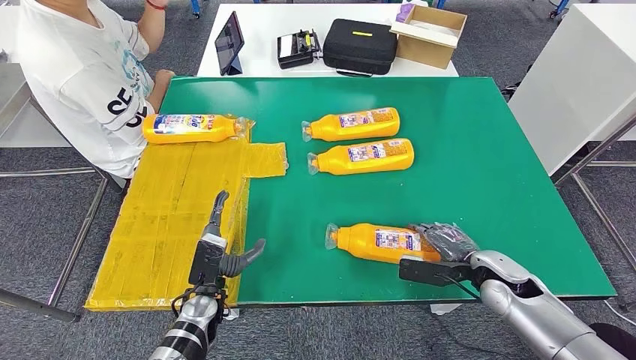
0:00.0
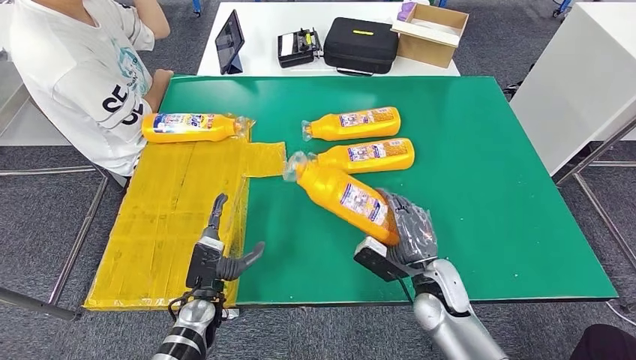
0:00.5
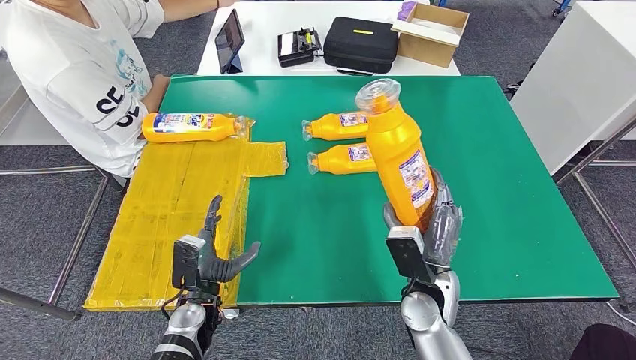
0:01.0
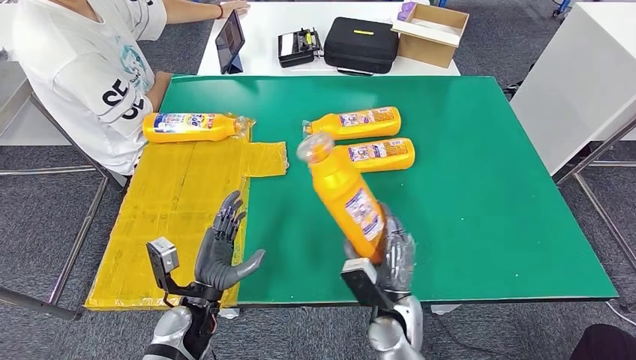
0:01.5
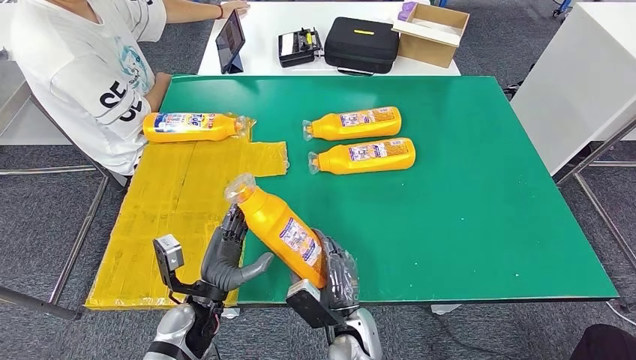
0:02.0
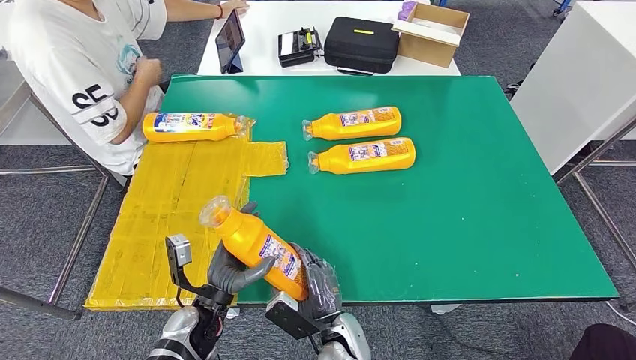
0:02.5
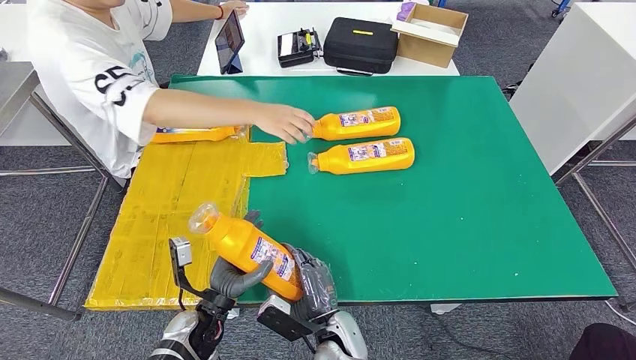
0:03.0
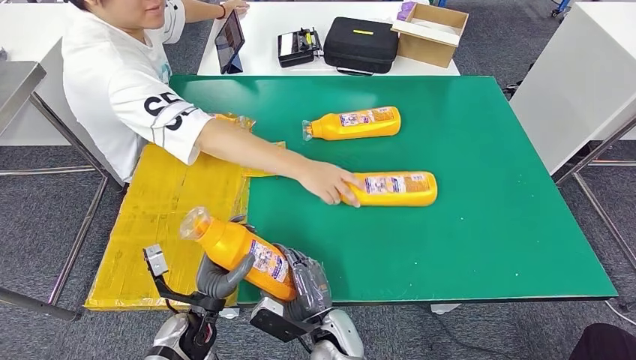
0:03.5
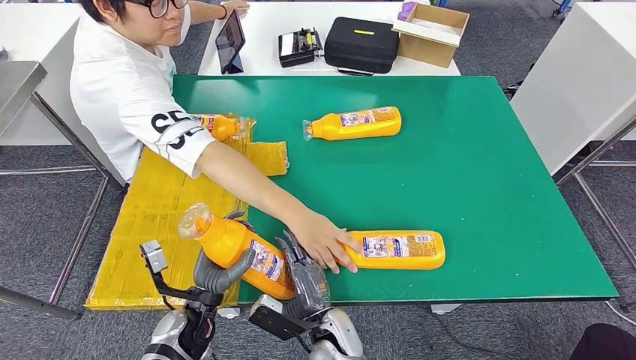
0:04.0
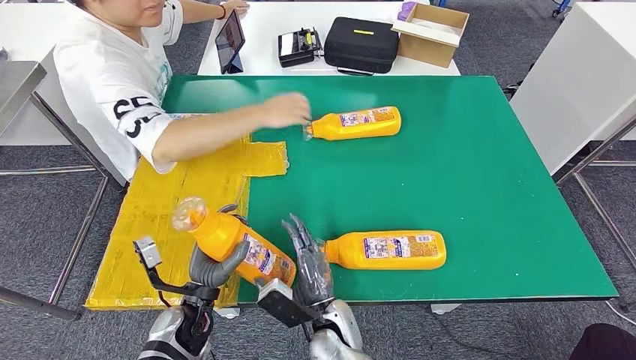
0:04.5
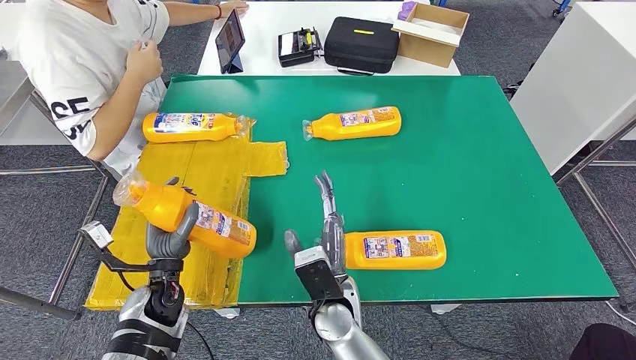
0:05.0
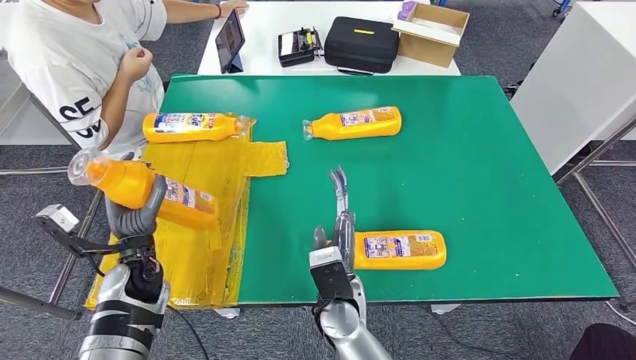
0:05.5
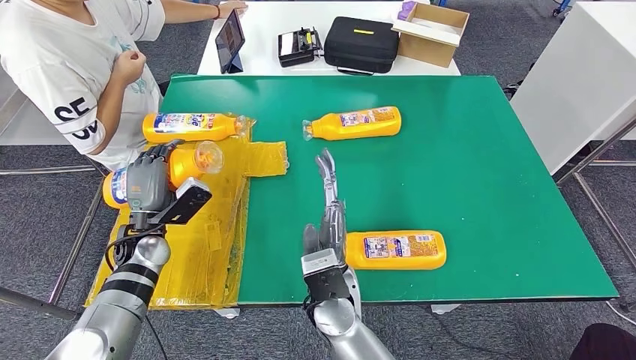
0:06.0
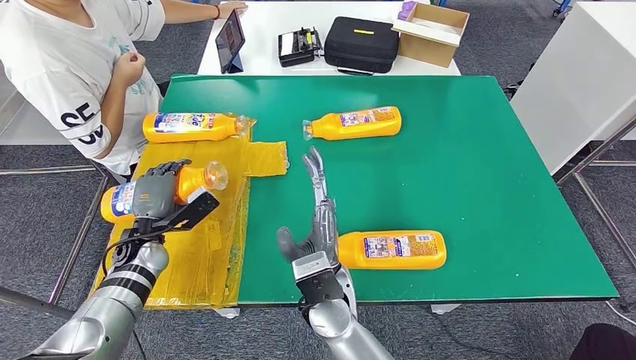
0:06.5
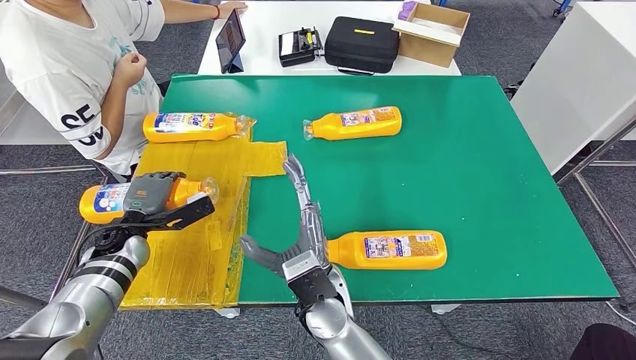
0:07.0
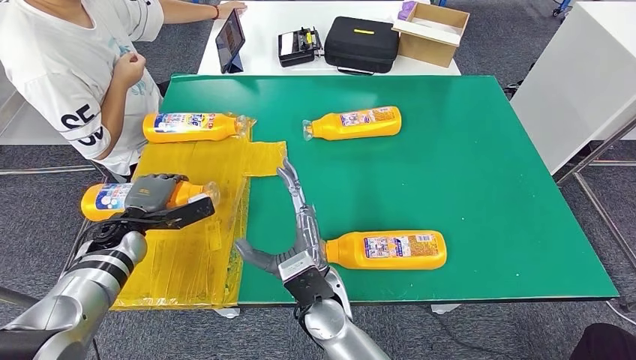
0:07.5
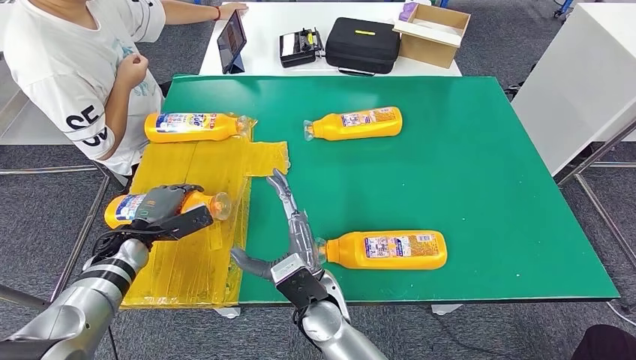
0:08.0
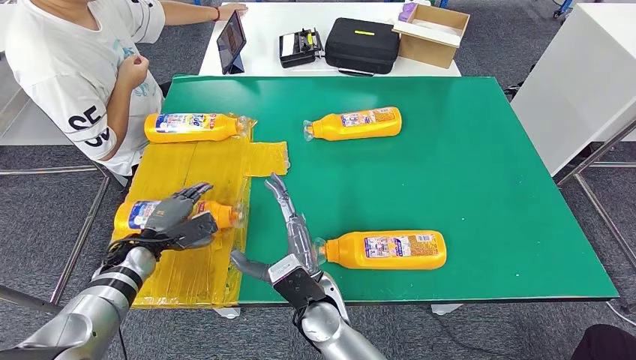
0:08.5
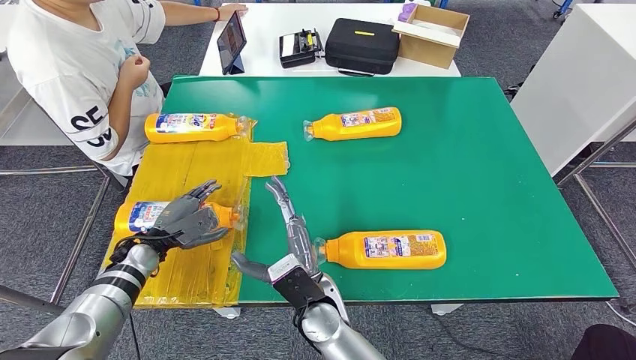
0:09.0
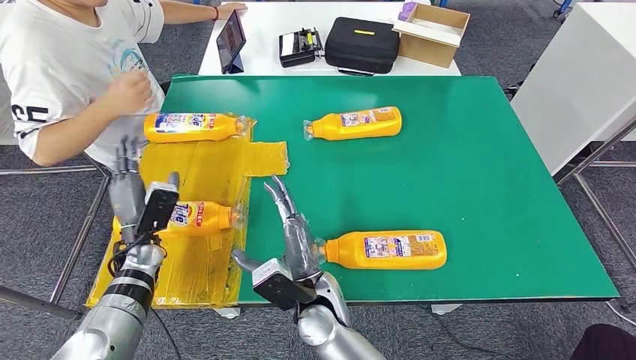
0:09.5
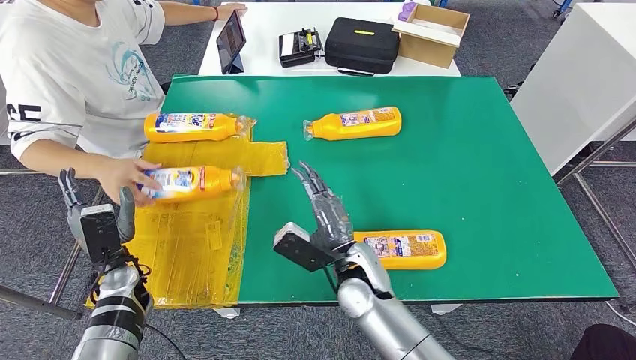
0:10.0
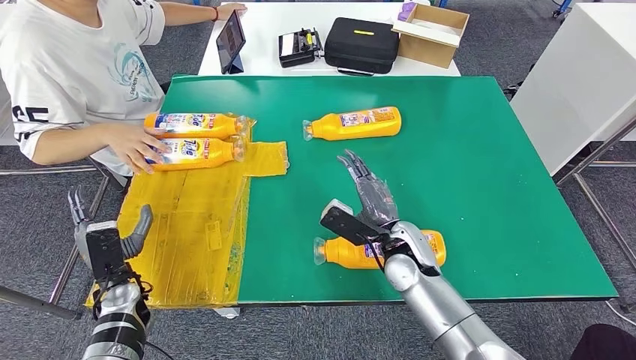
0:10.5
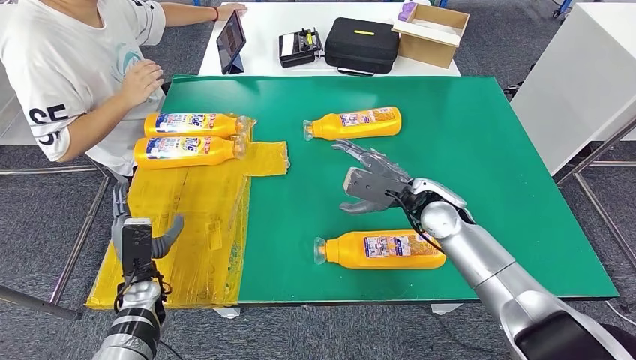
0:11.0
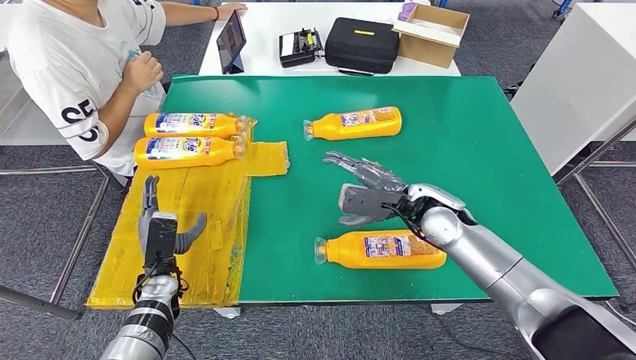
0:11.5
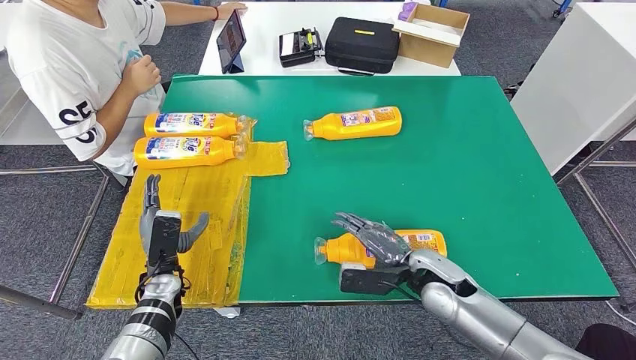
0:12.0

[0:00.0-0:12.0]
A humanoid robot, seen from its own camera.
Step, 0:00.0 to 0:03.0: Pick up the fast-moving consumer goods bottle from the table.
Step, 0:03.5 to 0:11.5: Flip the fast-moving consumer goods bottle to the front side.
0:06.0 to 0:08.0: The left hand goes some 5 cm to the left.

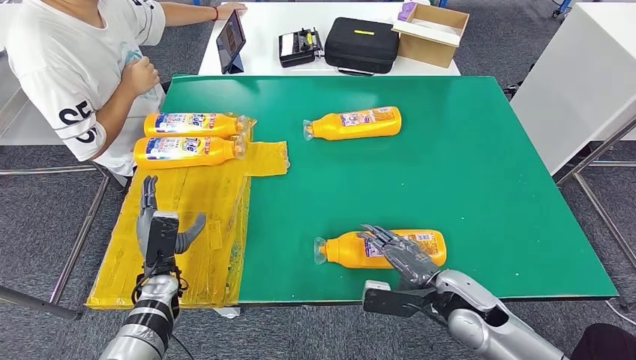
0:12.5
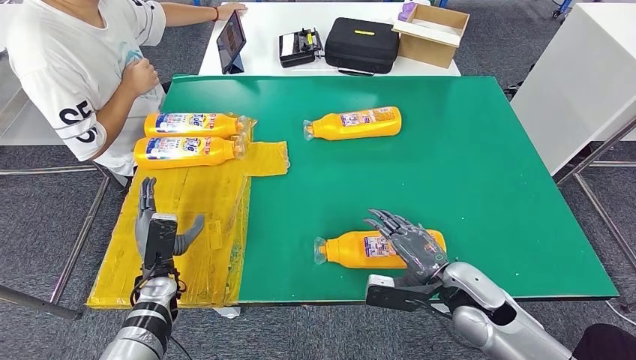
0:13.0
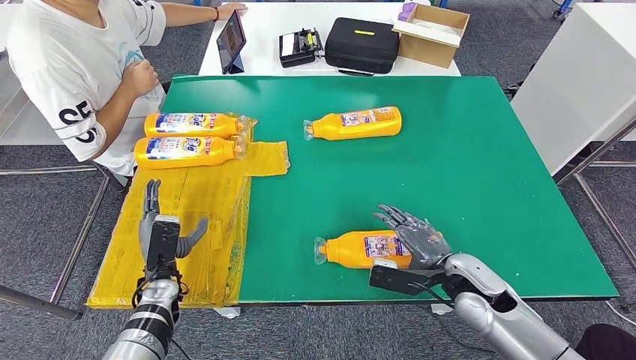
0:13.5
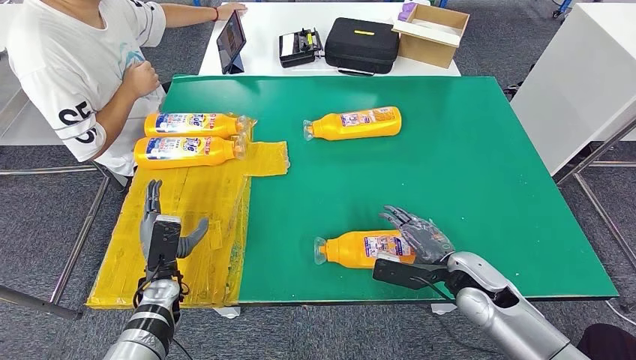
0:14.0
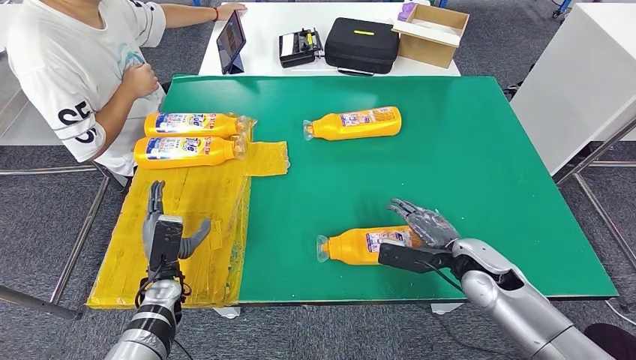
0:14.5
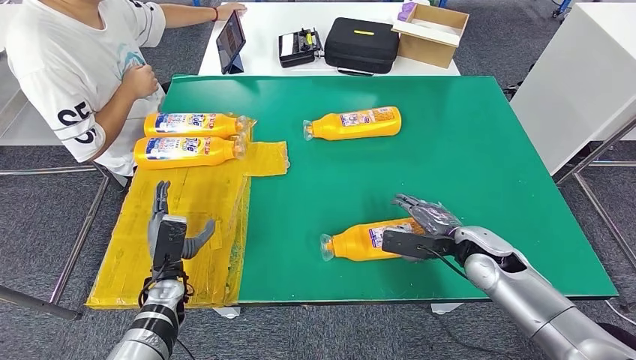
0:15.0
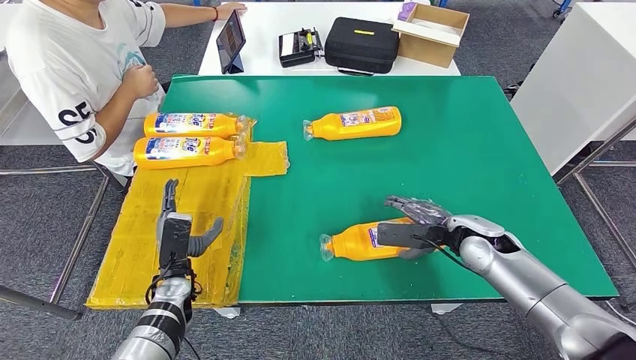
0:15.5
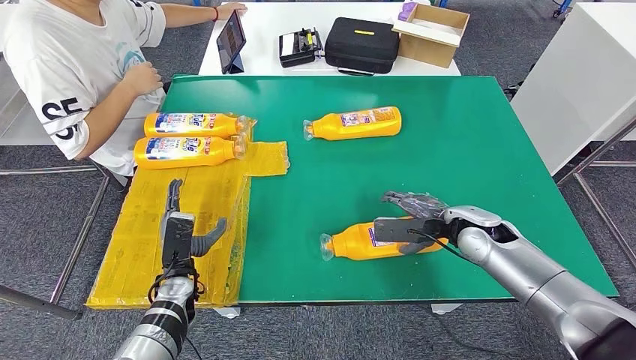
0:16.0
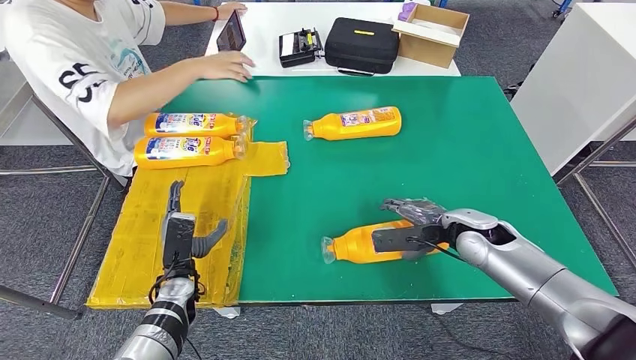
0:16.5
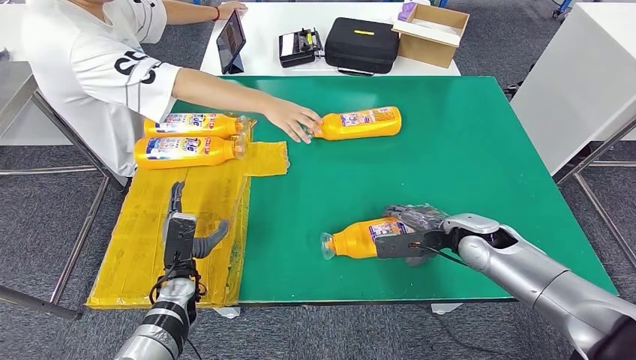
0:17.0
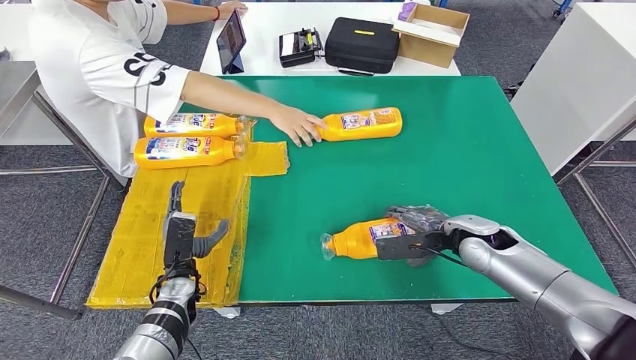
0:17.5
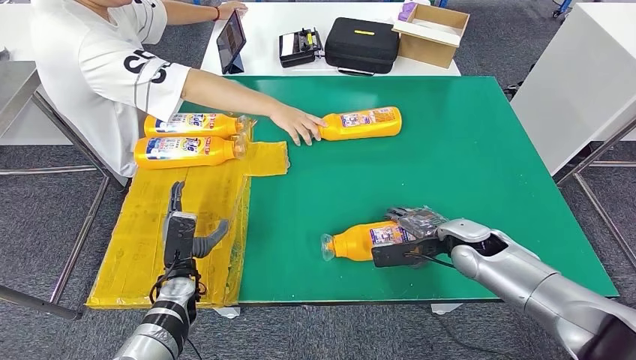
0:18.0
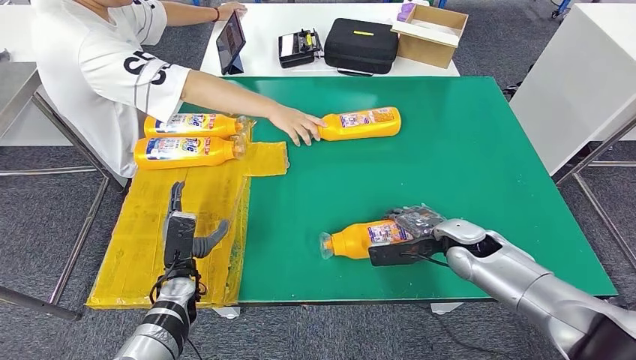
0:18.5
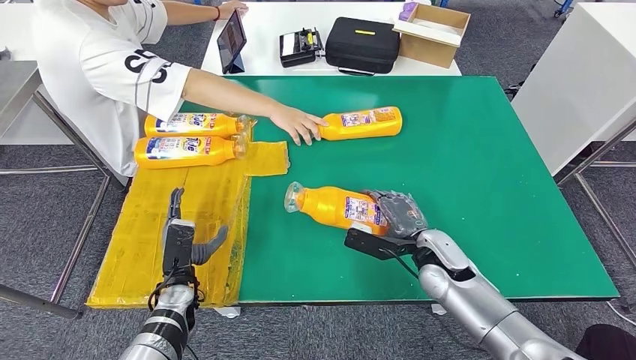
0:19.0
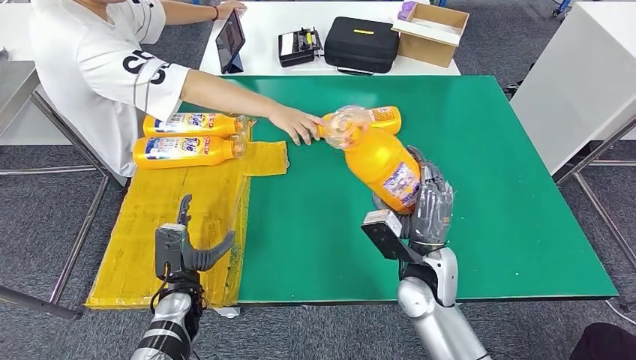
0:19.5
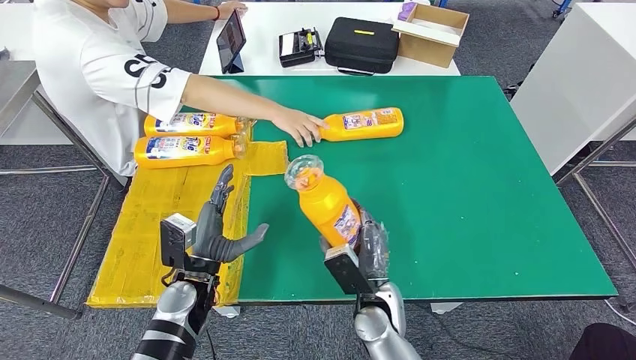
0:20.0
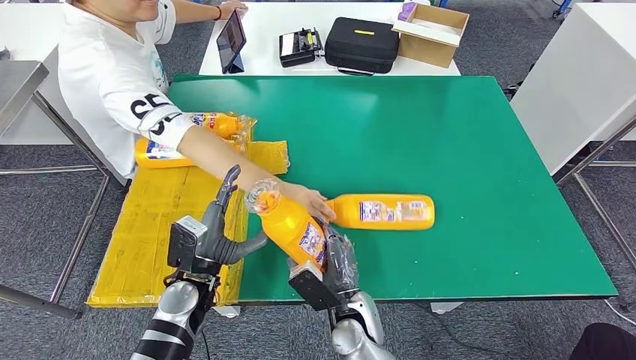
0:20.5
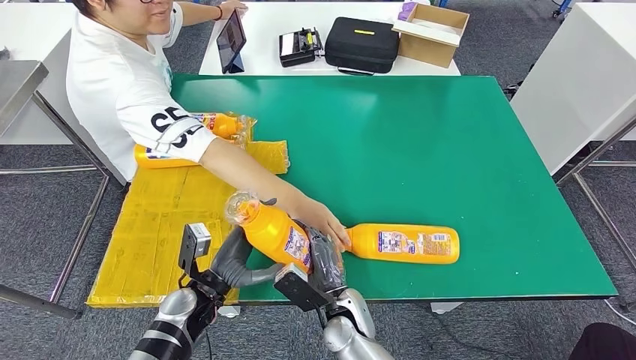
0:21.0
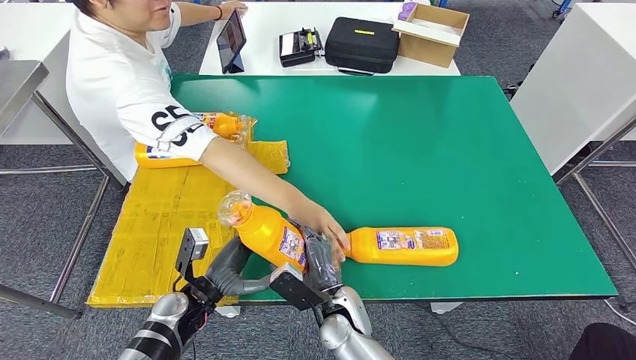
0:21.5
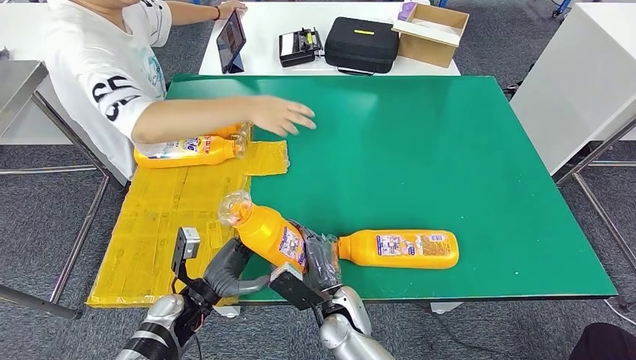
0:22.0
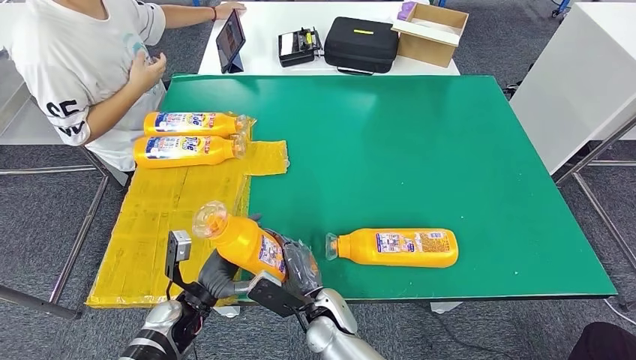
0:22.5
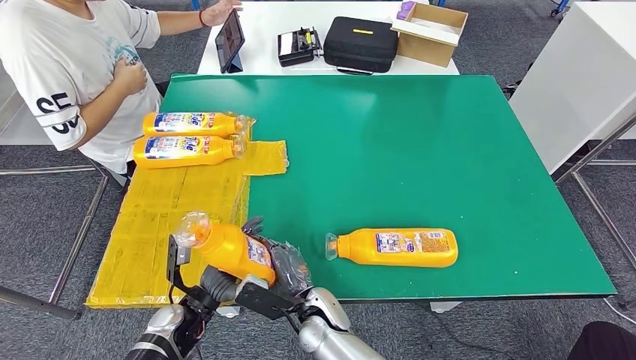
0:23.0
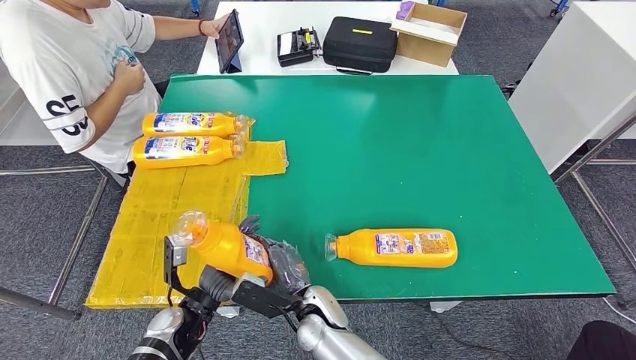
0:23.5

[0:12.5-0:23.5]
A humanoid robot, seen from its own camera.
Step, 0:12.5 to 0:21.5: Pick up the fast-moving consumer goods bottle from the table.
0:12.5 to 0:14.5: The right hand travels forward by approximately 5 cm.
0:14.5 to 0:16.0: The right hand goes roughly 5 cm forward.
0:16.0 to 0:18.0: The hands stay close to where they were, moving slightly.
0:18.0 to 0:20.0: The right hand goes approximately 20 cm to the left. The left hand shifts approximately 5 cm upward.
